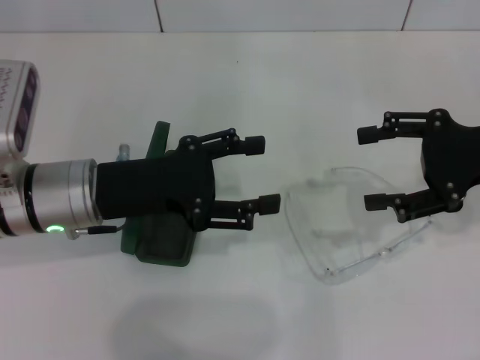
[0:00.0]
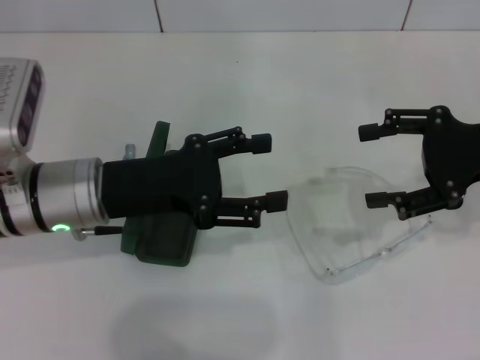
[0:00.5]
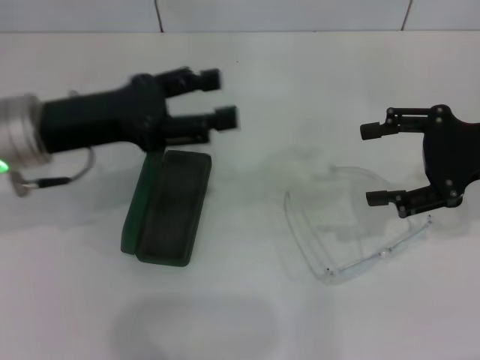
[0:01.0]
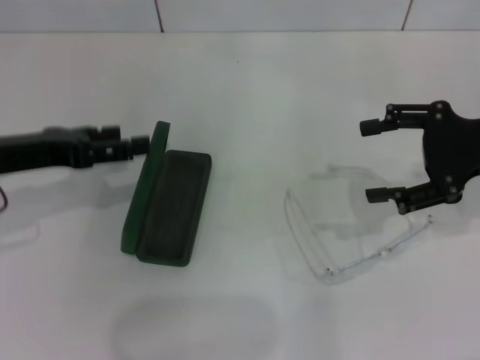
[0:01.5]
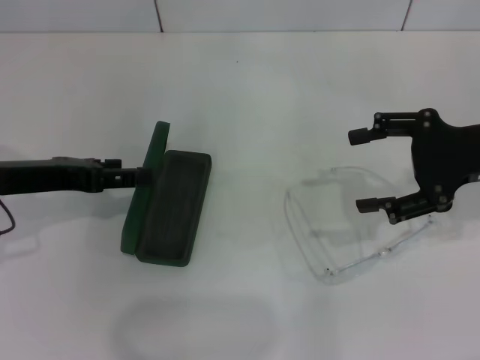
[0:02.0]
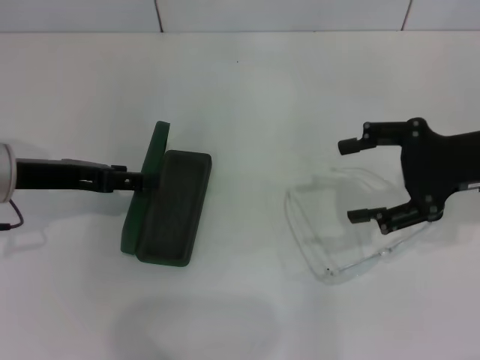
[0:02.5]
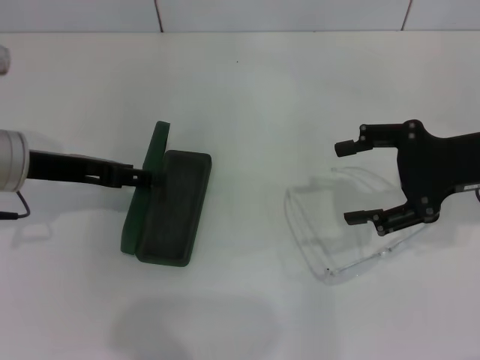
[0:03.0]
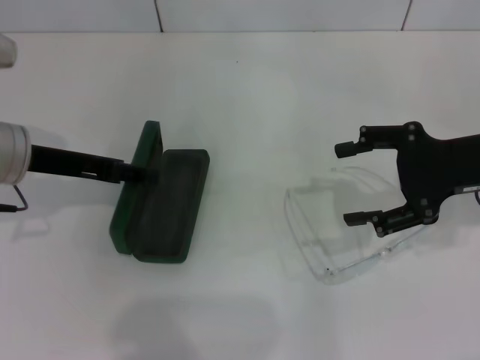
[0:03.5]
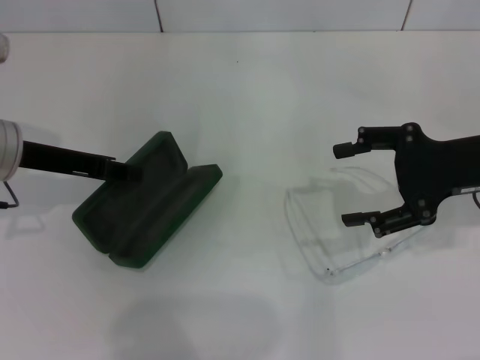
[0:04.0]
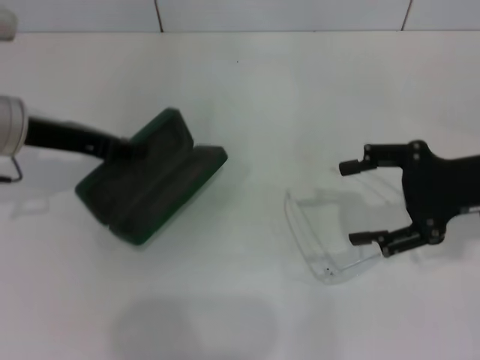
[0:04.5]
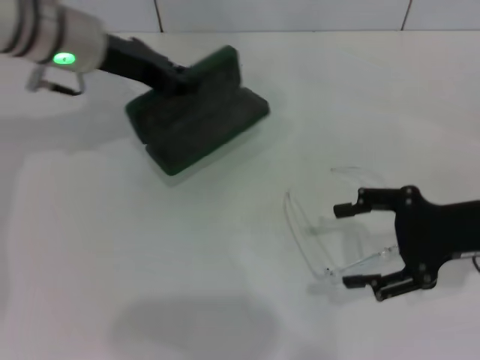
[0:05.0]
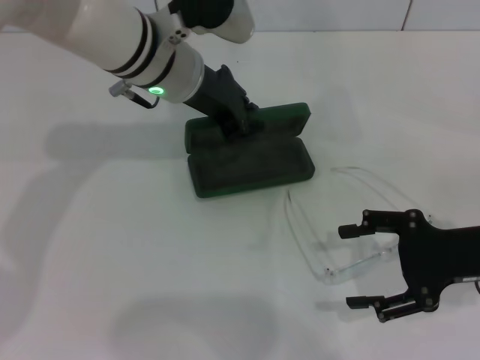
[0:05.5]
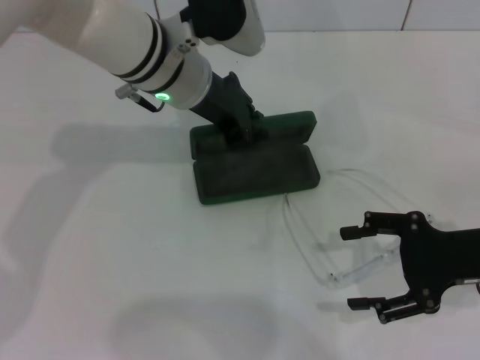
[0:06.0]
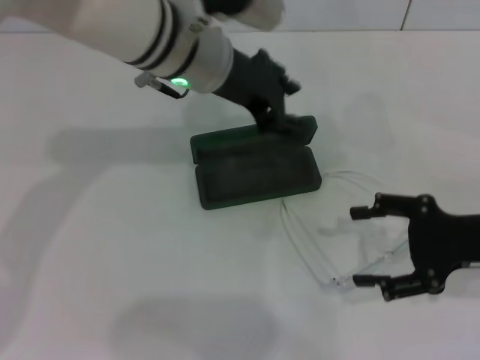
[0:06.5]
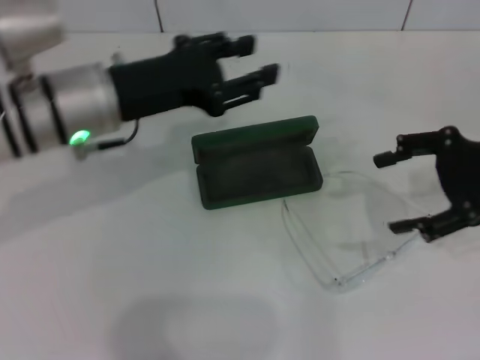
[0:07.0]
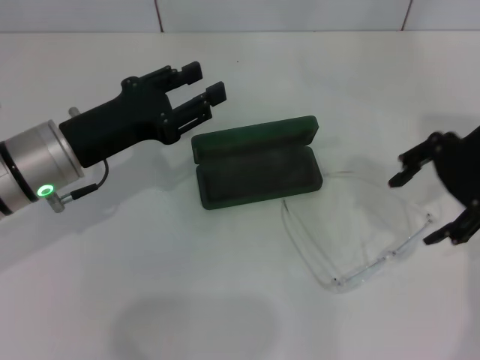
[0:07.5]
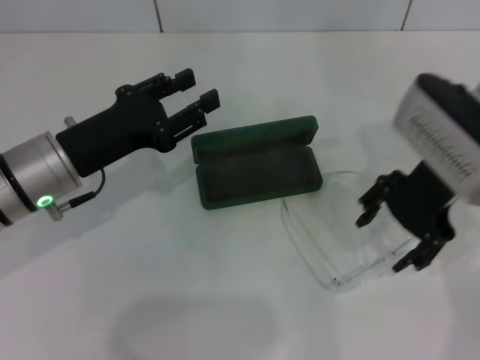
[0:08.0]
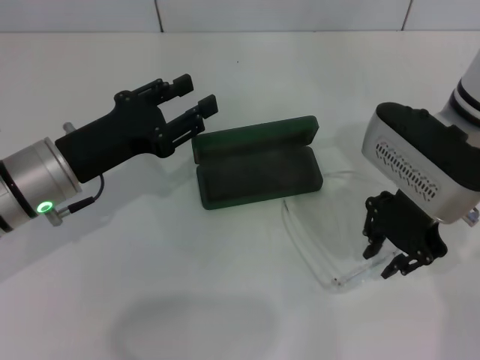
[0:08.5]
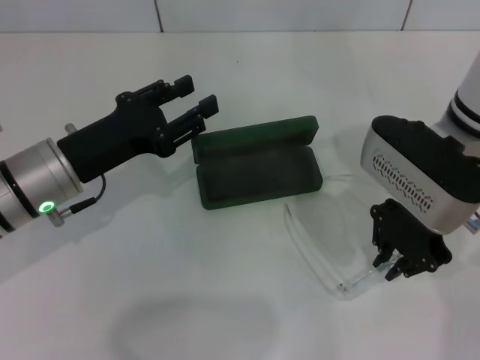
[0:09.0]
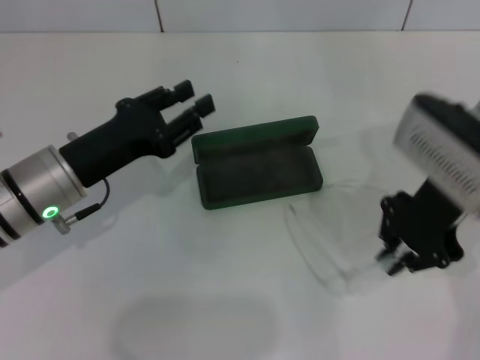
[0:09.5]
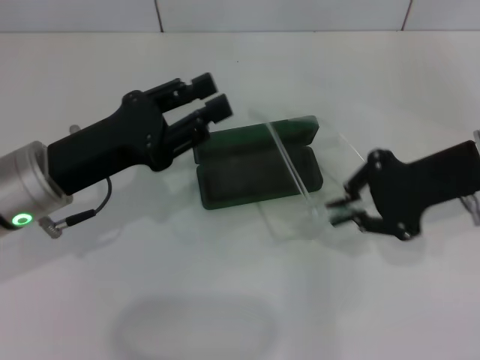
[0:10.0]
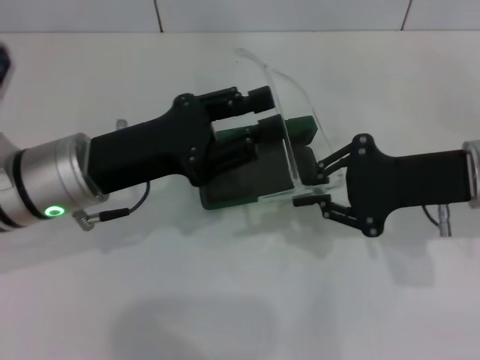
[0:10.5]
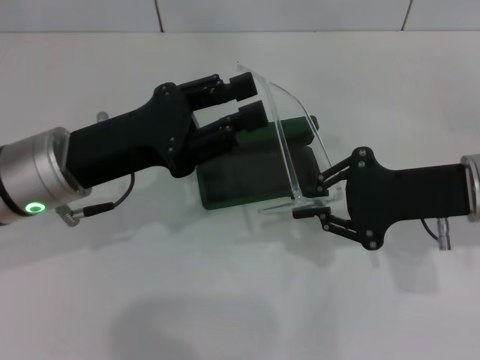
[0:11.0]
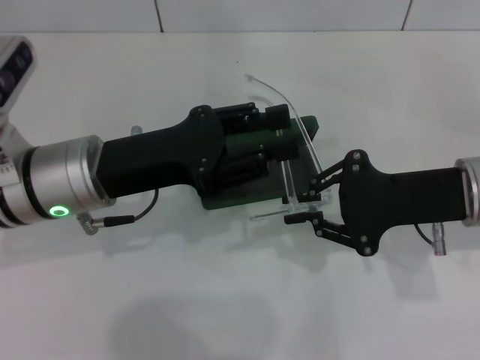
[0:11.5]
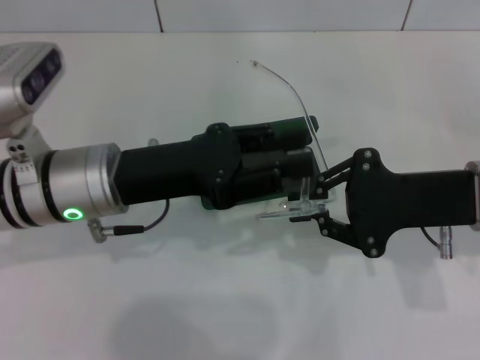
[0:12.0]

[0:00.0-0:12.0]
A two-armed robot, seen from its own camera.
Step, 0:00.0 to 0:04.0: Grab the glasses case with your left hand.
Step, 0:04.5 to 0:06.0: Place the glasses case in the center of the table with your left hand.
Step, 0:07.0 to 0:09.0: Grab the eyeglass frame with your right hand.
0:00.0 to 0:02.0: The left gripper travels to the left by roughly 10 cm.
0:02.0 to 0:04.0: The left gripper closes up.
0:04.0 to 0:06.0: The right gripper goes about 10 cm backward and downward. The left gripper goes about 20 cm to the right.
0:06.0 to 0:08.0: The right gripper travels to the left, upward and forward by about 15 cm. Meanwhile the left gripper goes about 20 cm to the left, backward and downward, and opens.
0:08.0 to 0:10.0: The right gripper shifts about 5 cm to the right, and closes up.
0:10.0 to 0:12.0: The left gripper ends up roughly 5 cm from where it was.

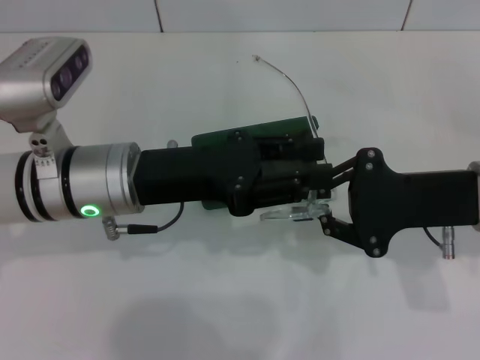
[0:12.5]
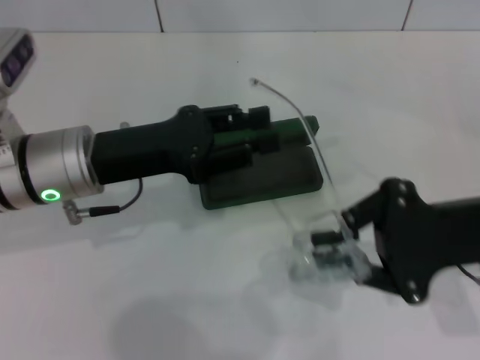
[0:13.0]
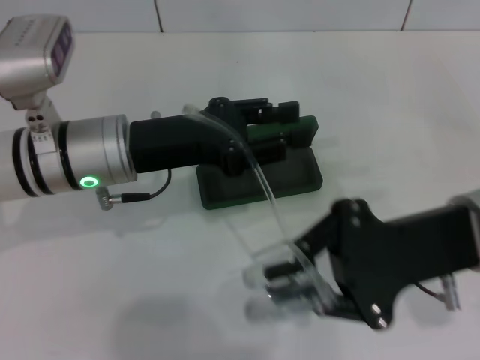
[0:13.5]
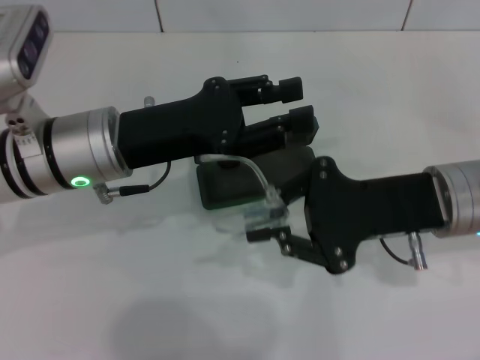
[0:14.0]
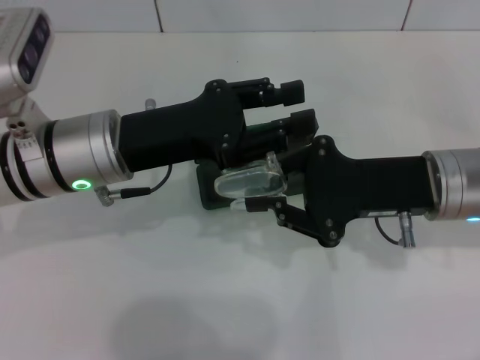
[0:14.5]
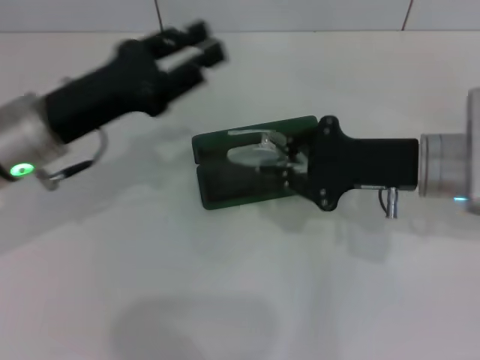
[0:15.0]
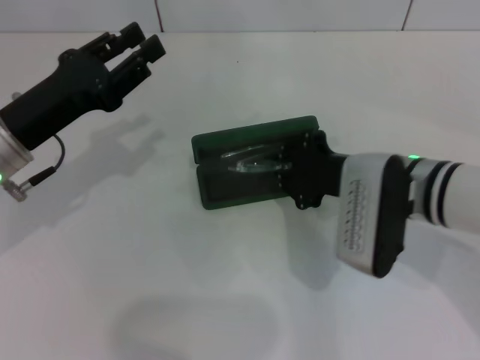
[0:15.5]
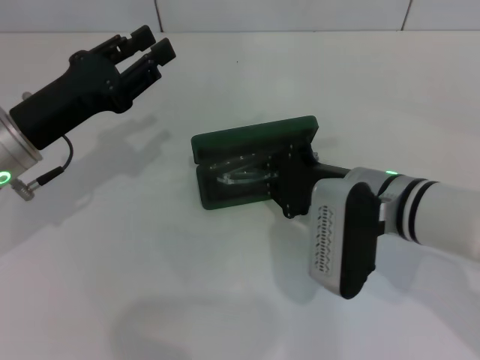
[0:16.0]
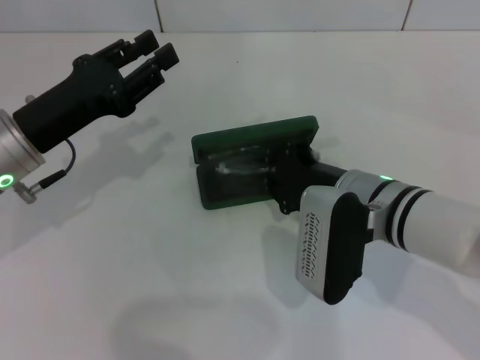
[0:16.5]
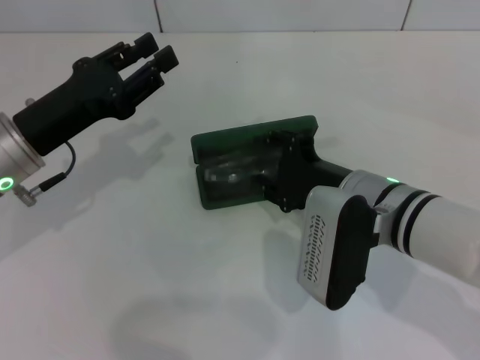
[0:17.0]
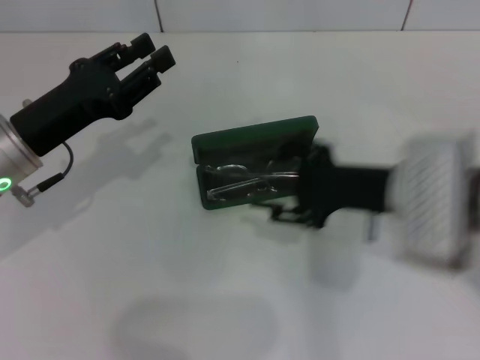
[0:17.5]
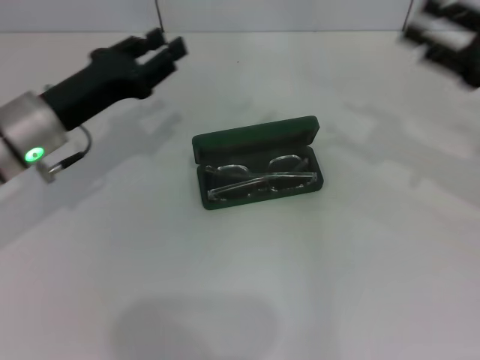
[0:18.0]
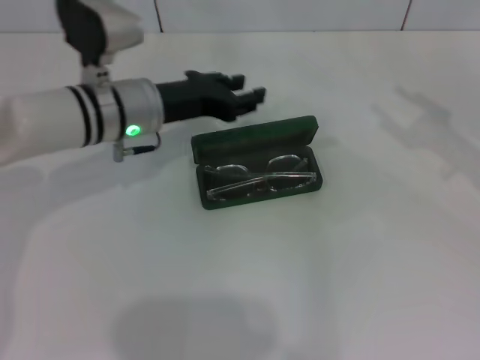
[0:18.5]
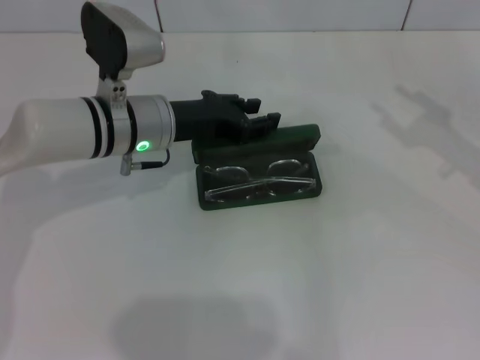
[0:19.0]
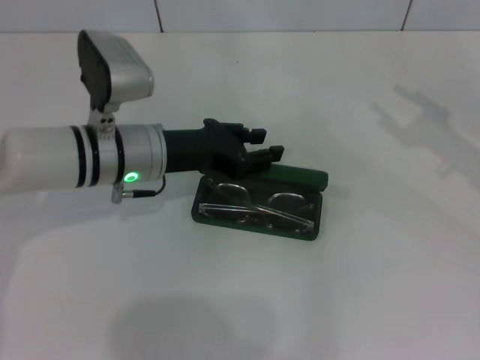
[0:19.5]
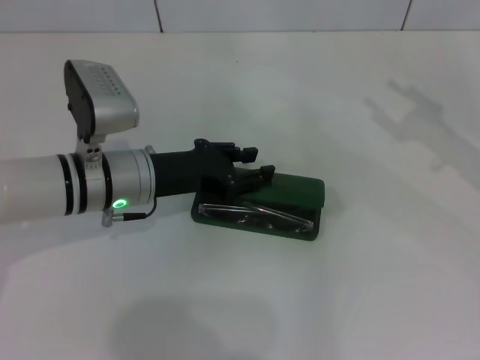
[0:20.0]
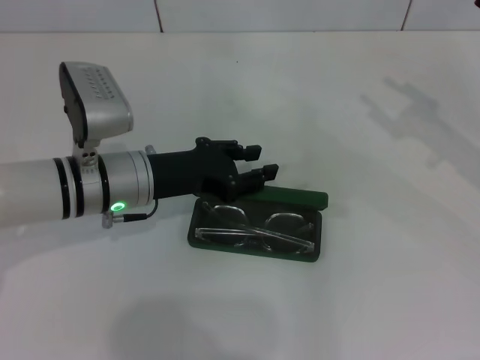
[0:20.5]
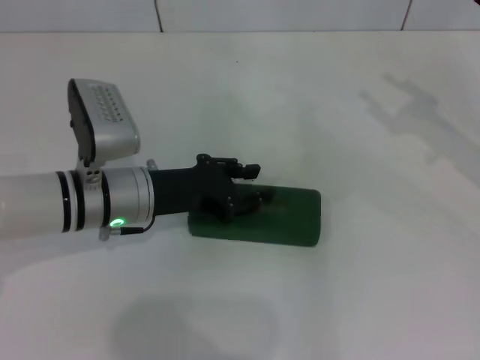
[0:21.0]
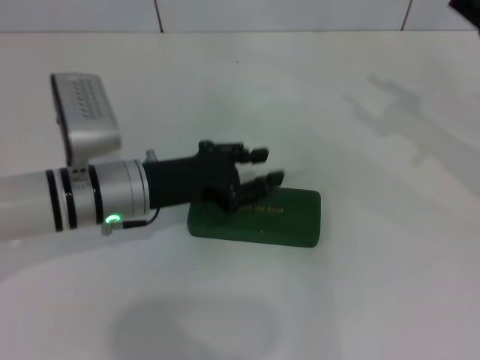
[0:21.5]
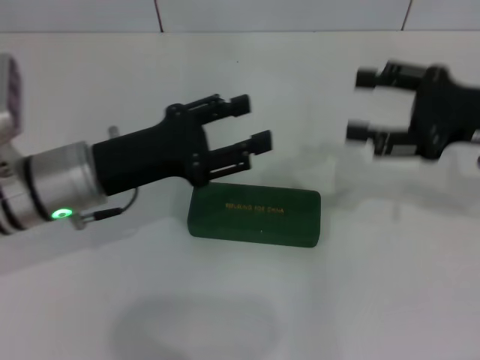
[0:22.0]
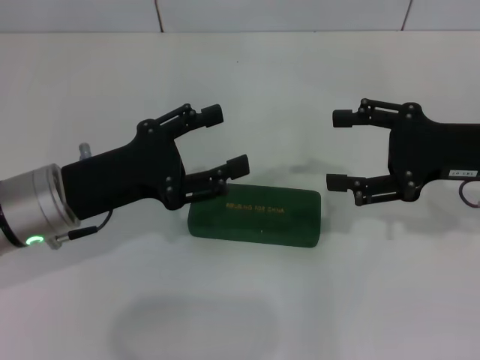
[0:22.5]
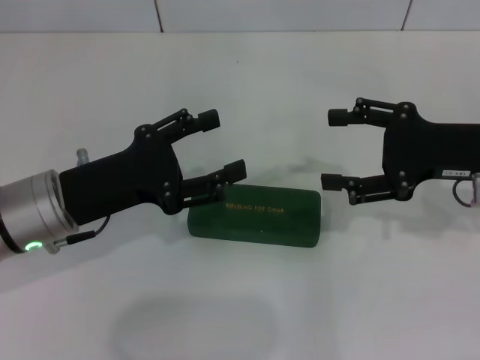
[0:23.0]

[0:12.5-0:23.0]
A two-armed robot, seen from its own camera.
Step, 0:12.5 to 0:14.5: Fold the frame with your left hand.
Step, 0:15.0 to 0:17.0: Put the glasses into the case with your right hand.
Step, 0:17.5 to 0:21.0: Close the glasses case with your left hand.
0:14.5 to 0:16.5: The right gripper shifts some 10 cm to the left and downward. Meanwhile the left gripper is displaced to the left by approximately 10 cm.
0:16.5 to 0:19.0: The right gripper is displaced to the right by about 20 cm, and opens up, while the left gripper moves to the right and forward, roughly 15 cm.
0:19.0 to 0:21.0: The left gripper shifts about 5 cm backward.
0:21.0 to 0:23.0: The grippers both shift to the left by about 5 cm. The right gripper opens, while the left gripper opens up.

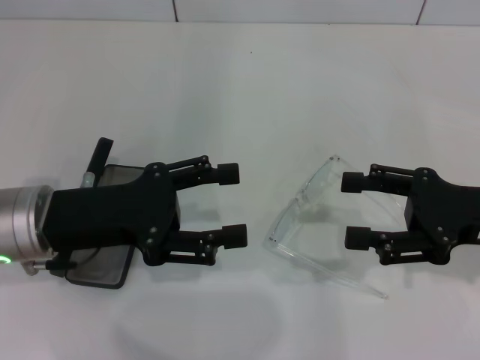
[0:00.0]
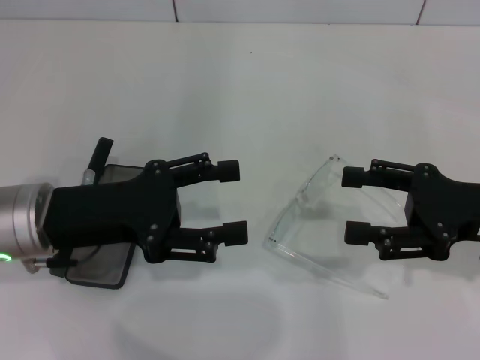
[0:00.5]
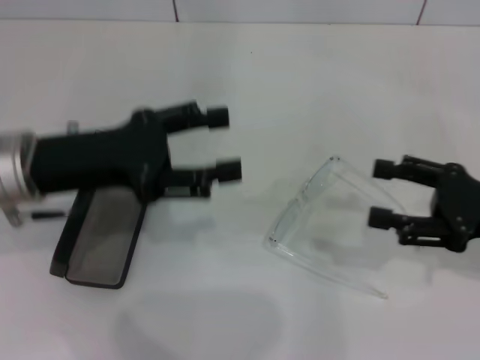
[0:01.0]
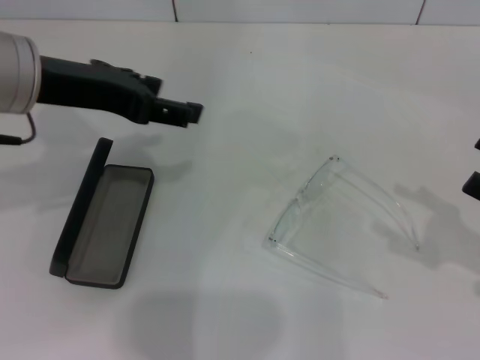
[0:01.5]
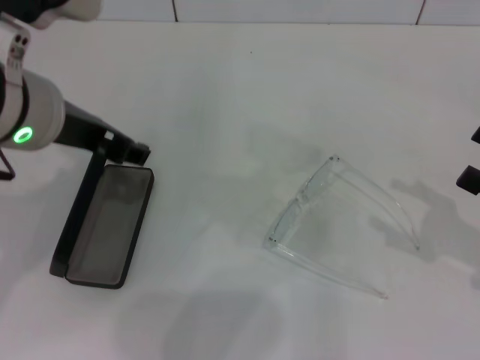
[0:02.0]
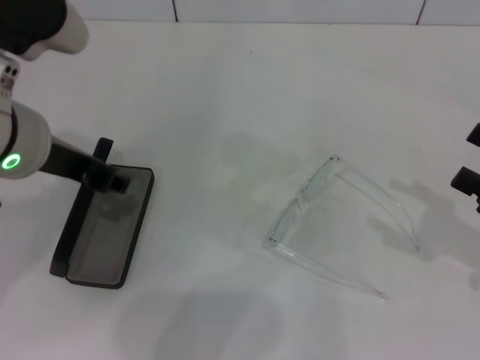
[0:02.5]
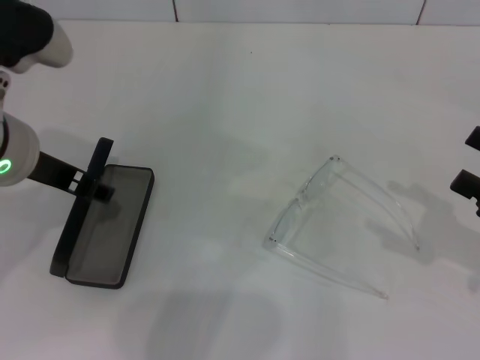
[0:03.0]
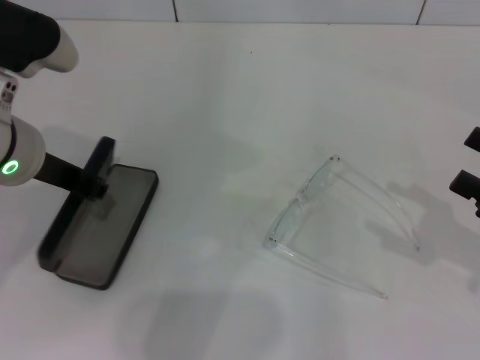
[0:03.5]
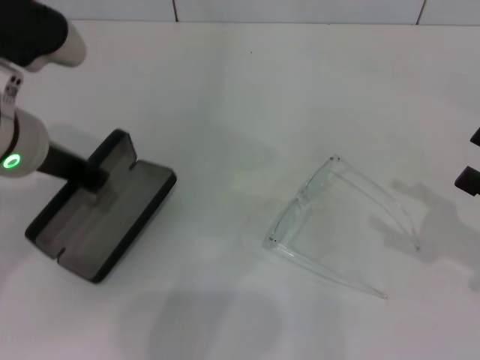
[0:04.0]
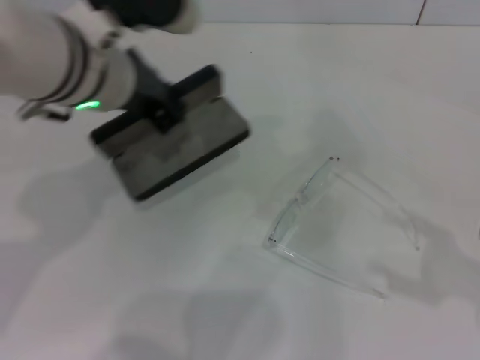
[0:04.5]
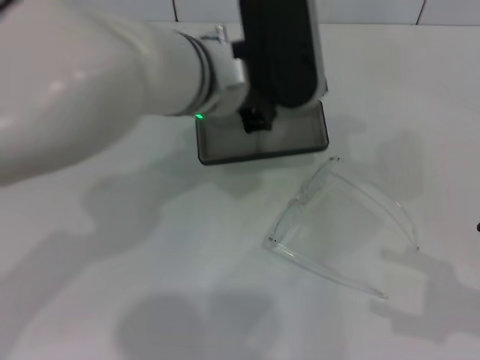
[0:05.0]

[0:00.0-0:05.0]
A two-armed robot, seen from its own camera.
Step, 0:00.0 to 0:03.0: Grab the glasses case with your left hand.
0:00.0 to 0:02.5: The left gripper is displaced upward by about 10 cm. Meanwhile the right gripper goes roughly 10 cm to the right.
0:02.5 to 0:05.0: The right gripper goes roughly 5 cm backward. Meanwhile the left gripper moves to the right and forward, some 15 cm, and closes.
